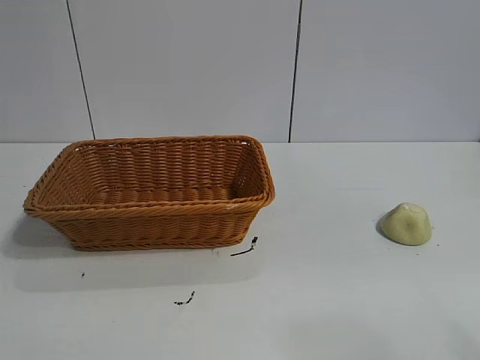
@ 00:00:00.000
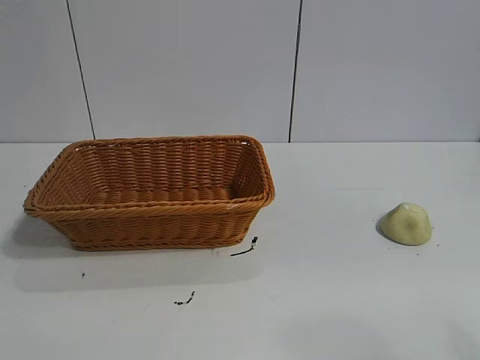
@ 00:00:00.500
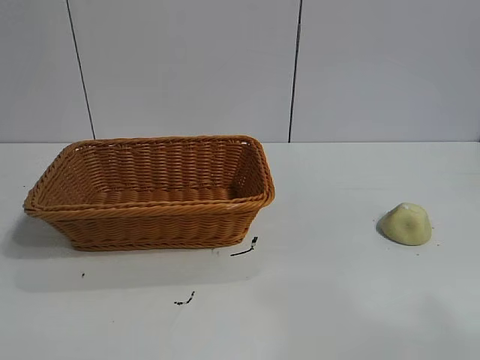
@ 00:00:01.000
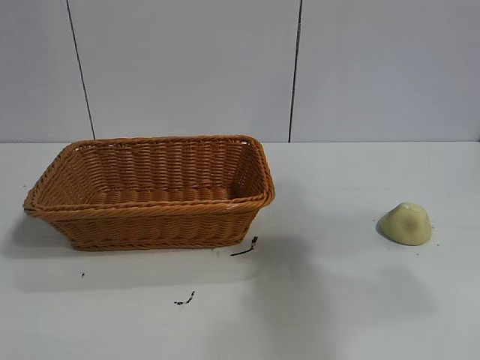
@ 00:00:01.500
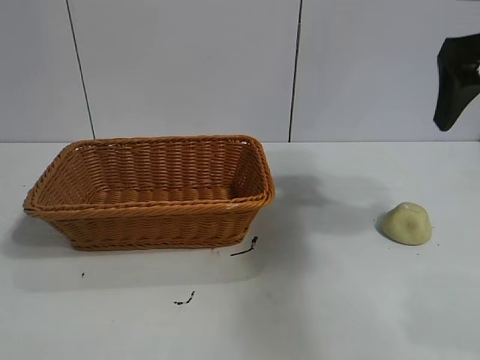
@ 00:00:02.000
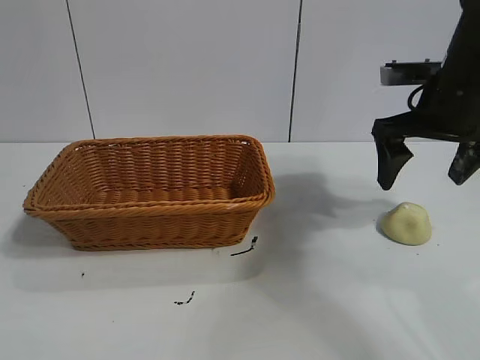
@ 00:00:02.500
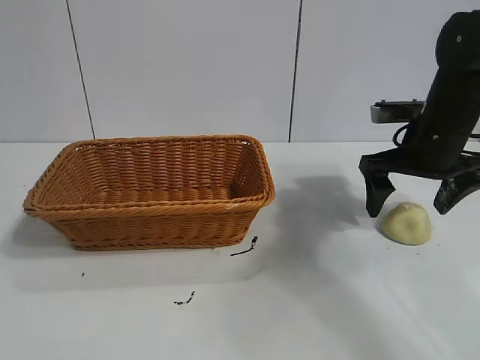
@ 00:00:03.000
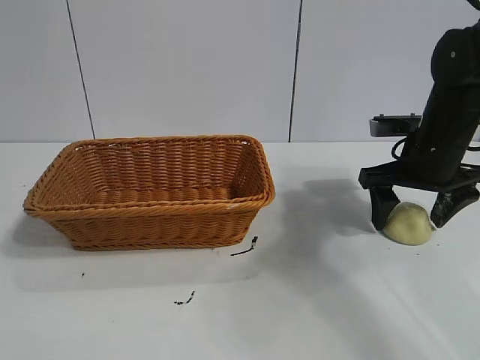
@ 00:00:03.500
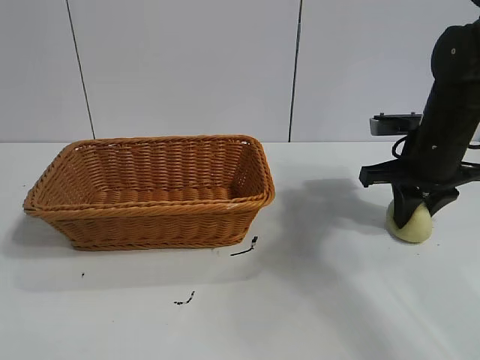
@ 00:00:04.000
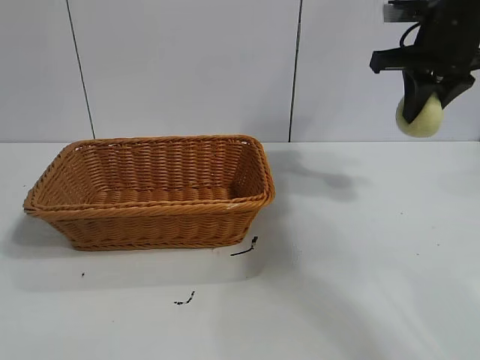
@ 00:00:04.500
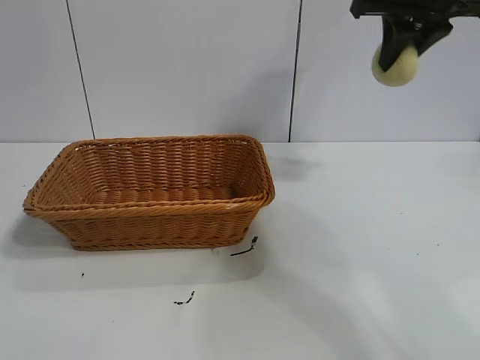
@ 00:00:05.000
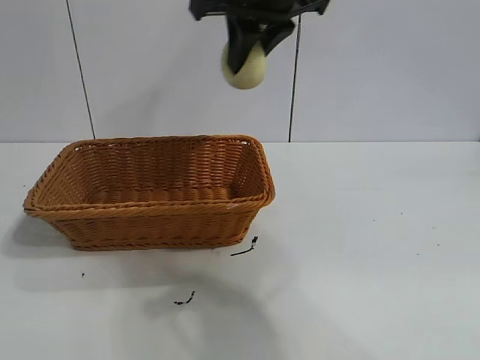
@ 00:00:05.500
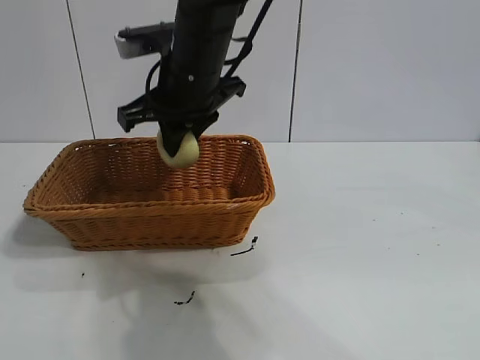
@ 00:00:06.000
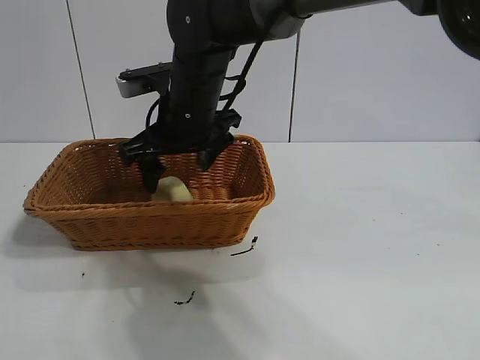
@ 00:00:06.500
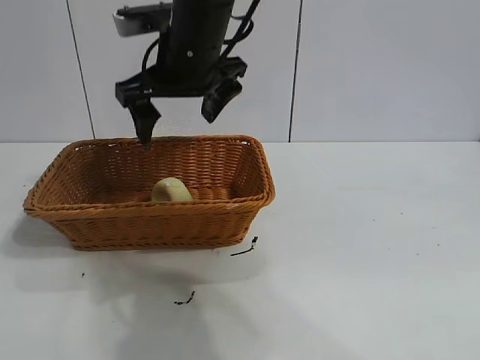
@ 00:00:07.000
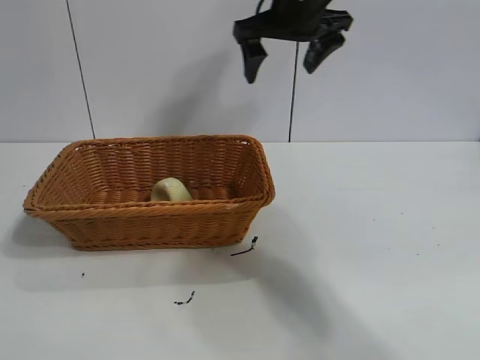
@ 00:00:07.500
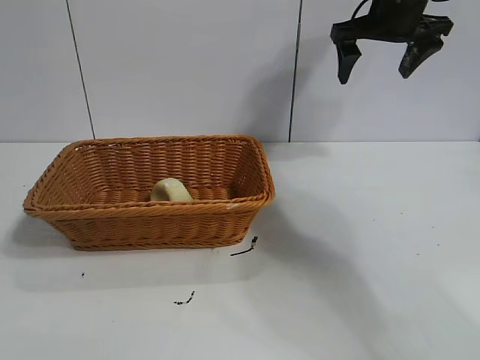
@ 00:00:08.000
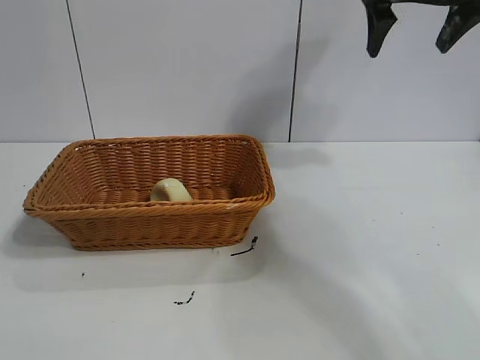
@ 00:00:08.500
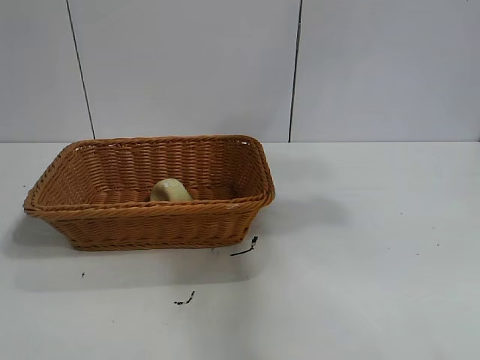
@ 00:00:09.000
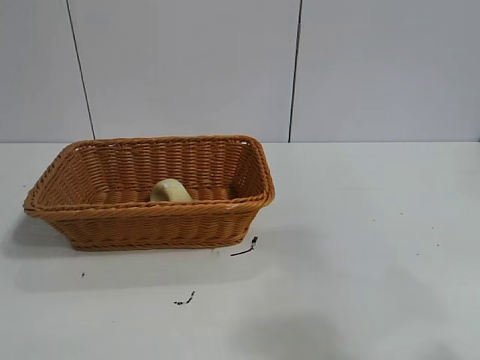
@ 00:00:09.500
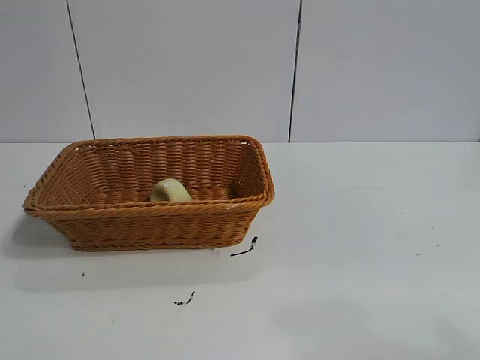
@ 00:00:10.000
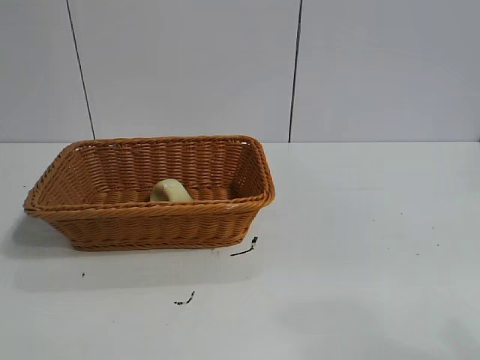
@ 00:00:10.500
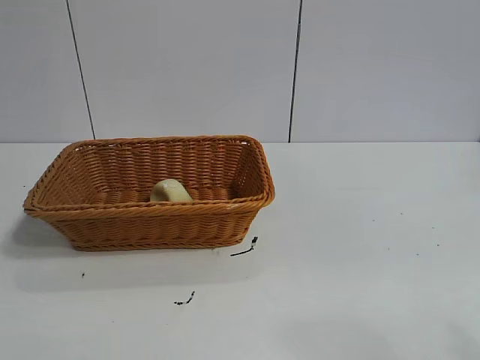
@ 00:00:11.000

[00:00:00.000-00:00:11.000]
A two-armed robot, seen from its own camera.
Task of the whole recording: pick up the egg yolk pastry and put it into the basket.
Step, 00:00:01.000 to 00:00:03.500: Grasp egg yolk pastry with right gripper.
Step, 00:00:04.000 to 00:00:06.500: Place the egg yolk pastry in the basket with right gripper.
